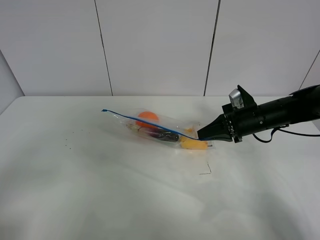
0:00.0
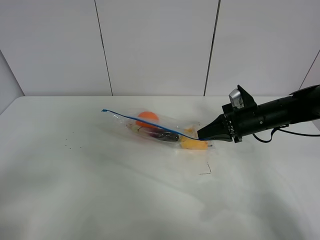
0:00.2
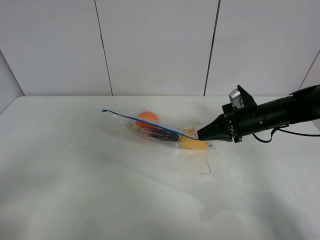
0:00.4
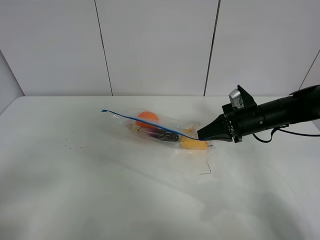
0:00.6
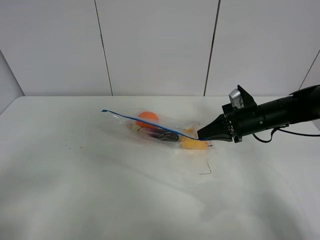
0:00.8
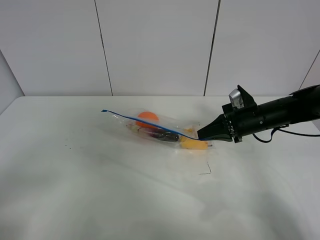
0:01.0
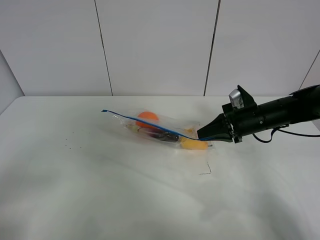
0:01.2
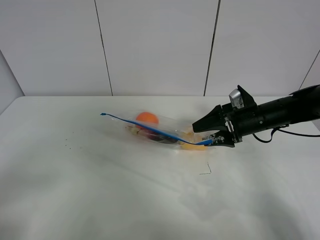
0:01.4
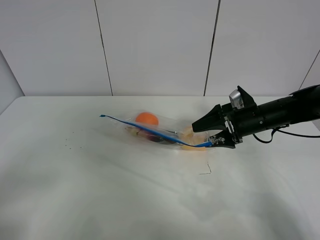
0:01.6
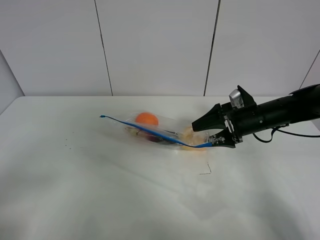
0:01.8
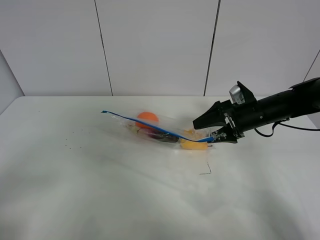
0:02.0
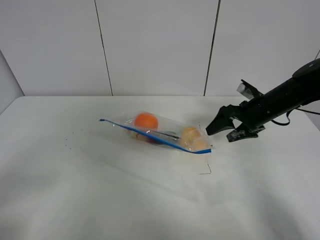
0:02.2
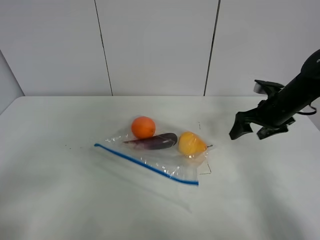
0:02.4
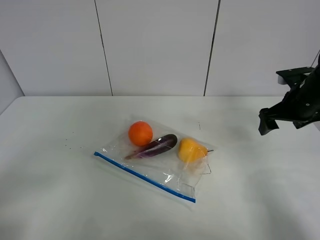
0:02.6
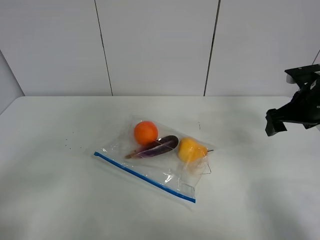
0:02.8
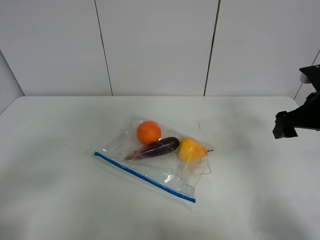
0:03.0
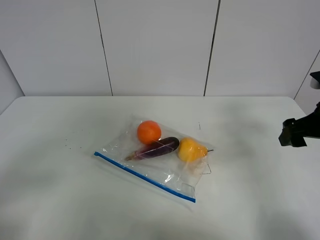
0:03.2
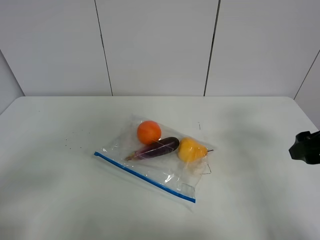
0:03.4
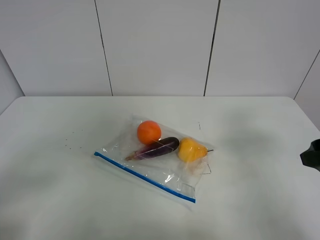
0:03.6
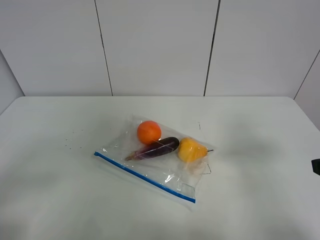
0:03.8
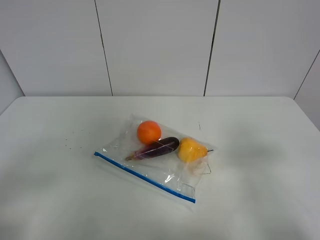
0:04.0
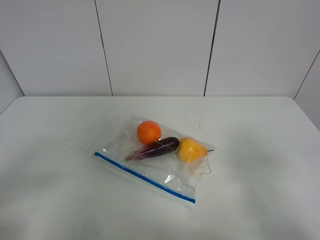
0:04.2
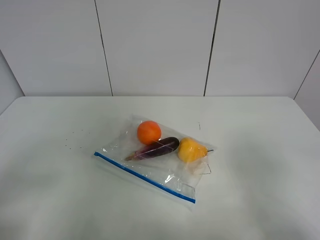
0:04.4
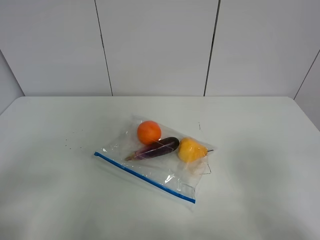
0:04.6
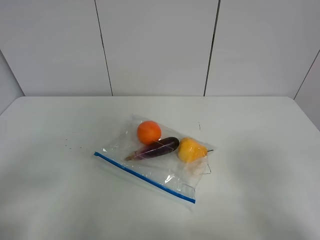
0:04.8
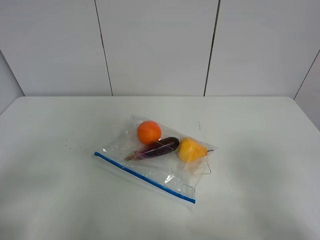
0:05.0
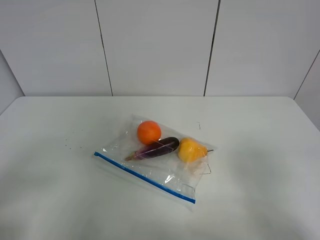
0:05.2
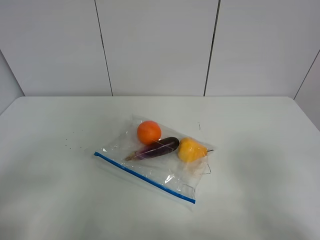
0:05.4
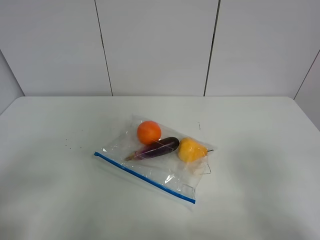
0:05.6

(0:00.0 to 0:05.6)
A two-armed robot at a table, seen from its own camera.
Step, 0:00.0 - 0:02.4: Place the fruit bag with right gripper.
0:00.0 - 0:01.4: The right gripper opens up.
0:01.4 - 0:02.8: The right gripper heads to the right and upward, covering roughly 10 cm.
0:02.8 - 0:04.2: The right gripper is displaced backward by approximately 25 cm.

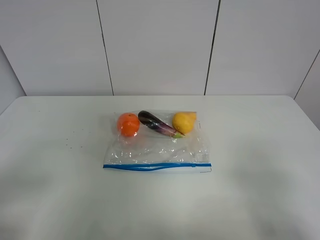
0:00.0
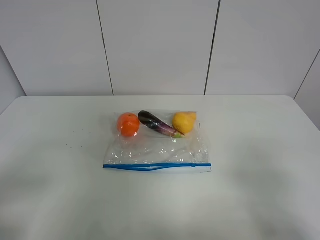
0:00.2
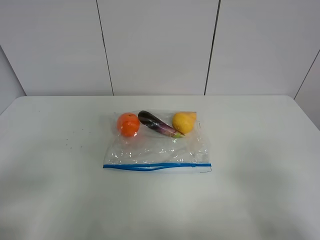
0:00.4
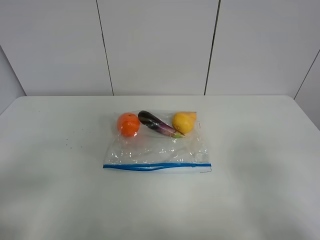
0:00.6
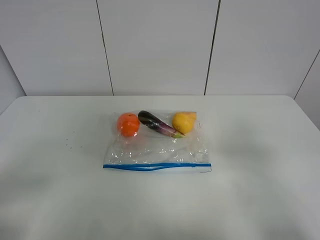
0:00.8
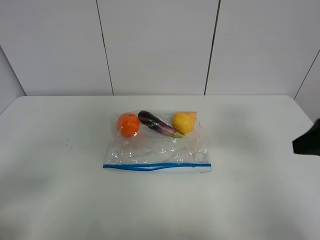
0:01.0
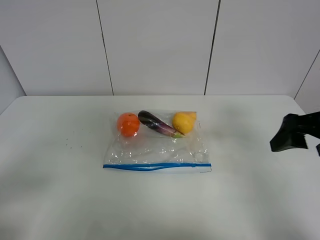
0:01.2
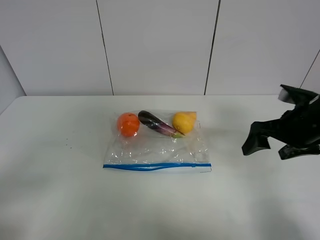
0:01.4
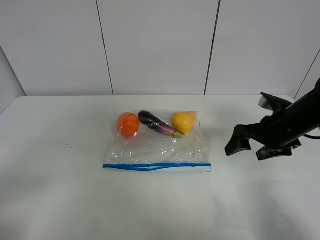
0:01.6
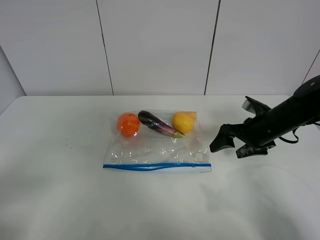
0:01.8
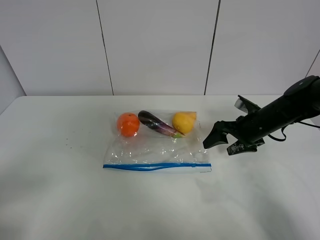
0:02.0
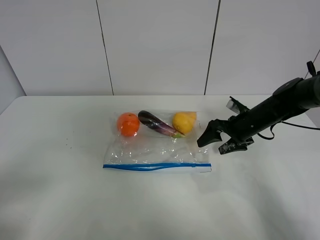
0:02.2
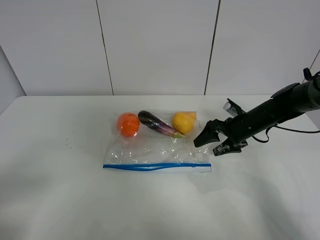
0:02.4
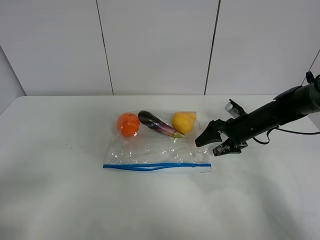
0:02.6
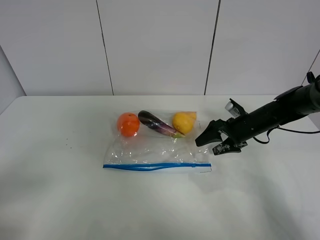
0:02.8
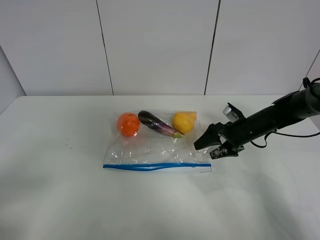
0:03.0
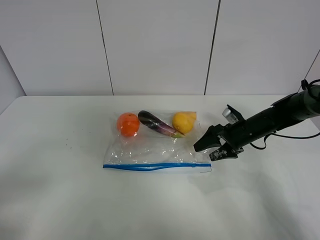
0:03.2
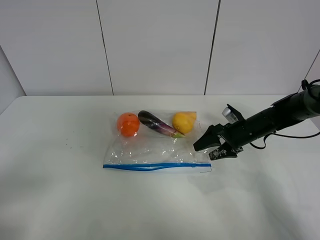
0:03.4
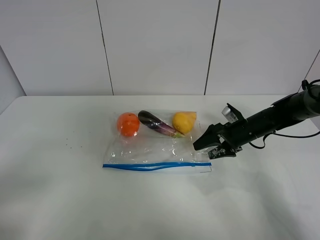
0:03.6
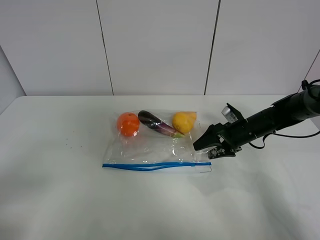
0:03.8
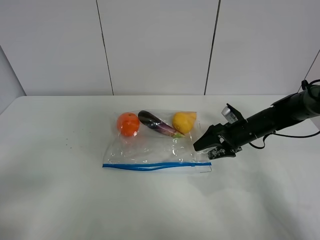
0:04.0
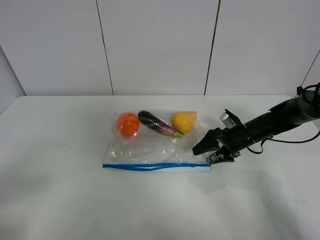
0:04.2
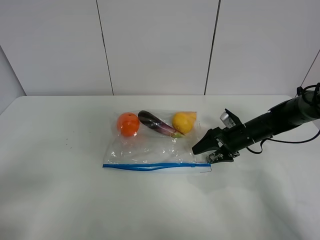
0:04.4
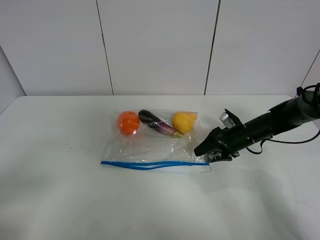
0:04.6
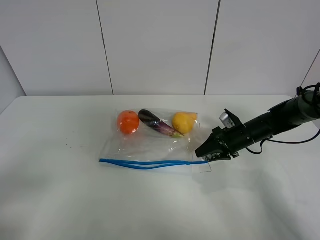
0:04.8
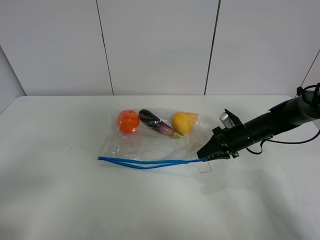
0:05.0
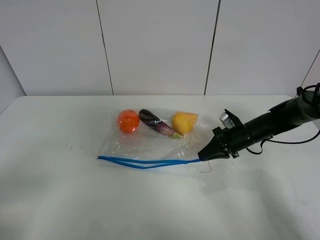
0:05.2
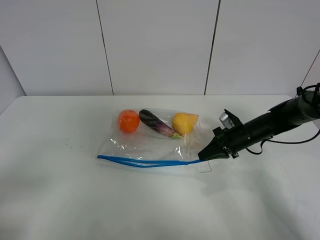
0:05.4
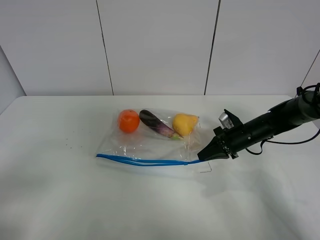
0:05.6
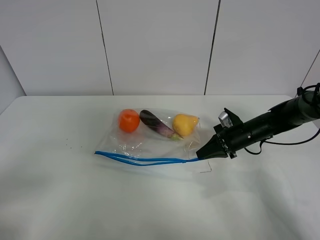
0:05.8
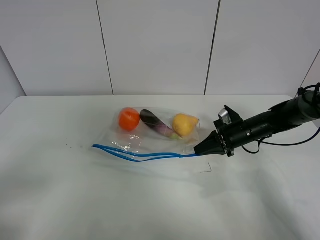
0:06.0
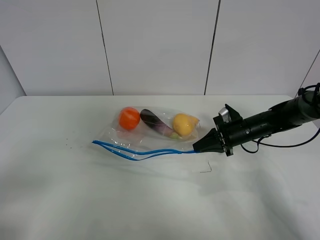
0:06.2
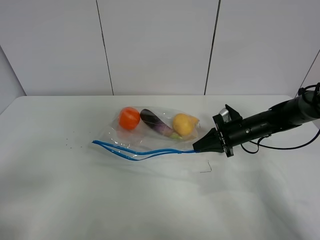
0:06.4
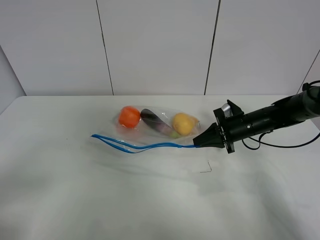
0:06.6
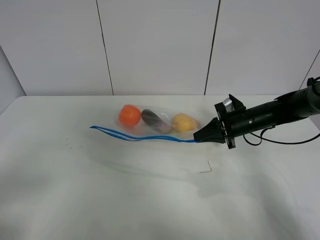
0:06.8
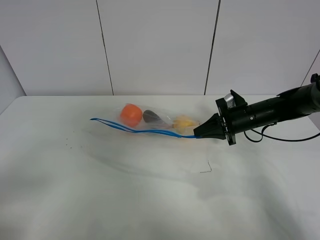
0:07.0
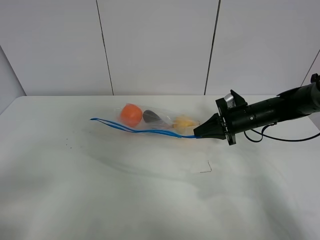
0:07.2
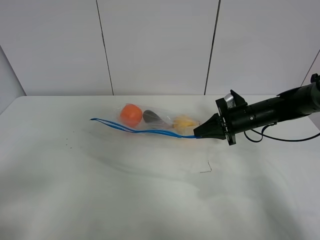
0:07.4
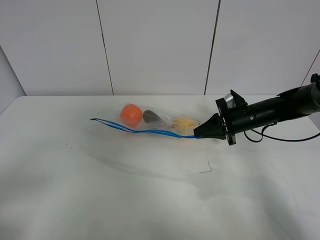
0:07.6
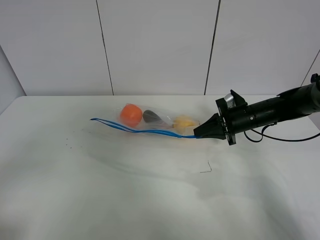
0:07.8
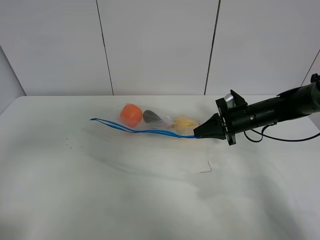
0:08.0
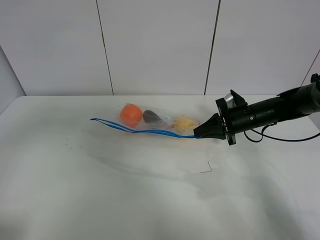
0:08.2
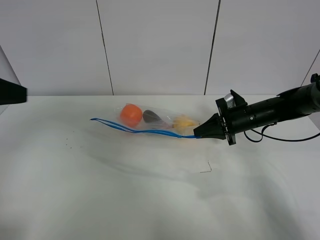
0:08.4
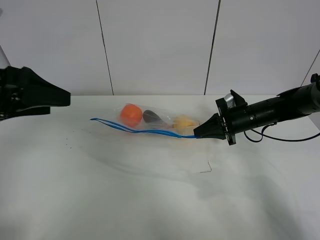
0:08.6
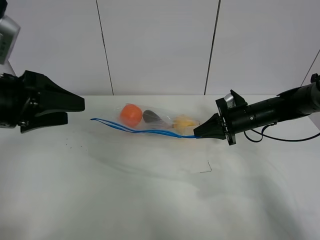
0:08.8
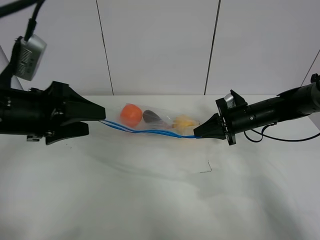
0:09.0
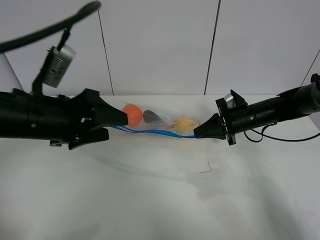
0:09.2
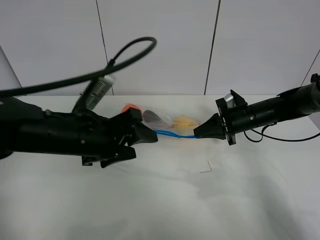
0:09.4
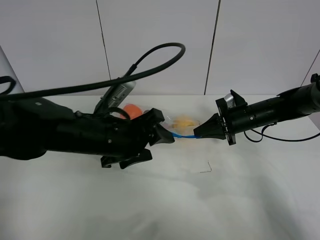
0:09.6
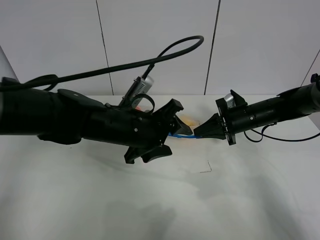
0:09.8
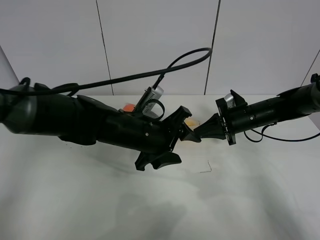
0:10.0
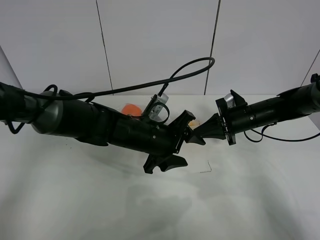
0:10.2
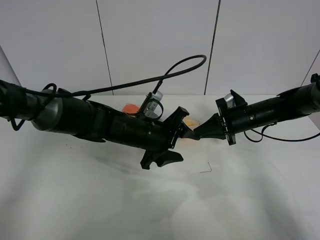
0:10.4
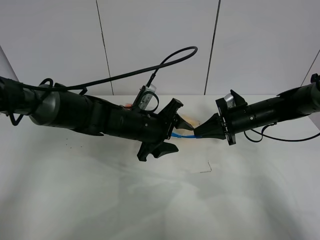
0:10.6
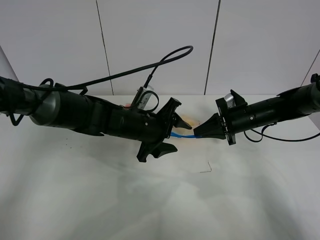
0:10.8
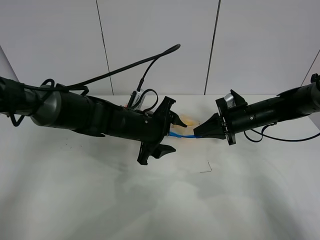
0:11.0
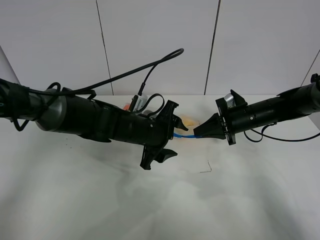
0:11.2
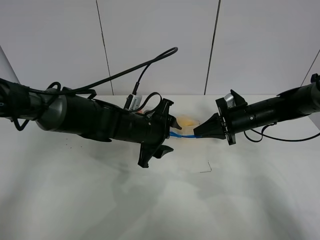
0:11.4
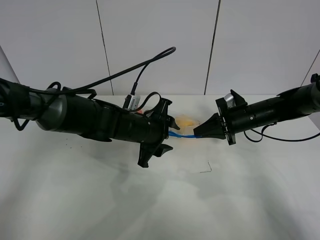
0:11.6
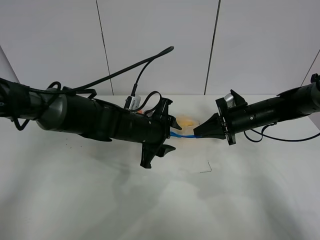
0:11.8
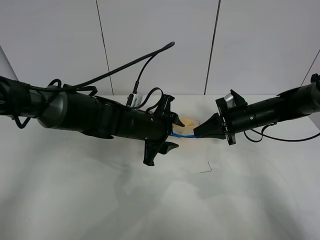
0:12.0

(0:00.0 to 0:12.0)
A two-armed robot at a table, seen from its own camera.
Step, 0:00.0 - 0:05.2: Grasp the fruit bag with right gripper.
Step, 0:05.4 - 0:07.6: Lift the fruit bag with your right gripper.
0:00.0 - 0:01.6: The right gripper heads forward, covering some 30 cm.
0:01.6 - 0:03.0: The right gripper moves downward and forward, roughly 15 cm.
0:03.0 - 0:04.4: The grippers make only small movements.
0:04.4 - 0:06.0: The right gripper closes its fingers.
0:06.0 - 0:07.6: The grippers move only a little.
0:07.6 - 0:09.0: The left gripper moves forward and to the right, some 20 cm.
0:09.0 - 0:10.4: The left gripper goes some 20 cm to the right, downward and forward.

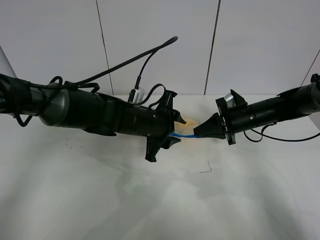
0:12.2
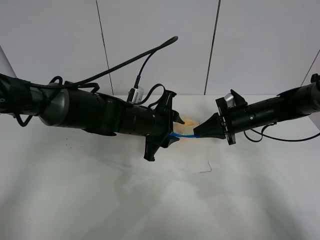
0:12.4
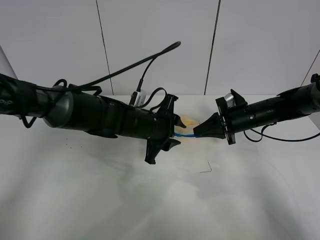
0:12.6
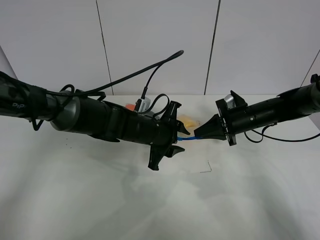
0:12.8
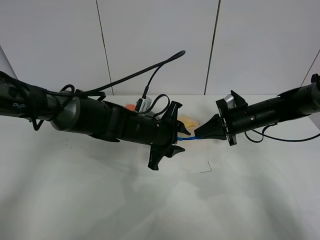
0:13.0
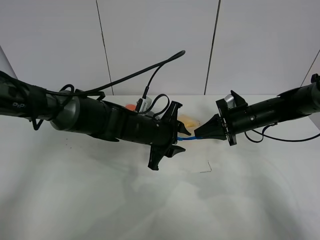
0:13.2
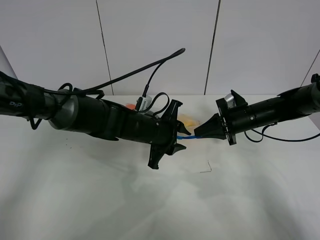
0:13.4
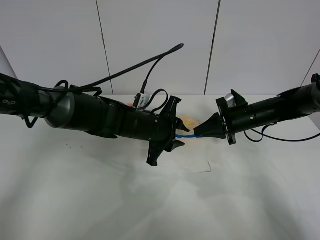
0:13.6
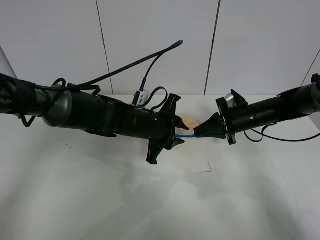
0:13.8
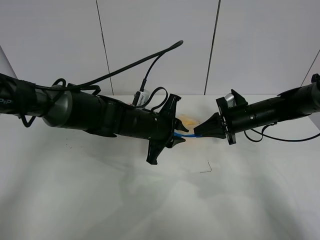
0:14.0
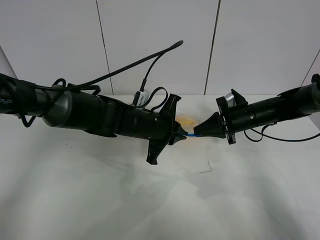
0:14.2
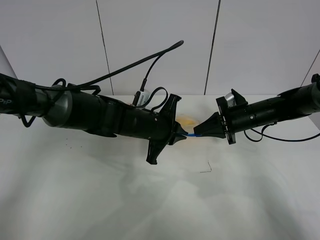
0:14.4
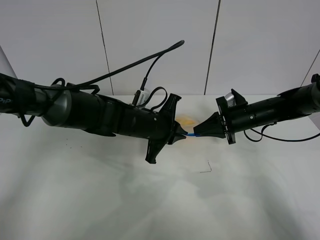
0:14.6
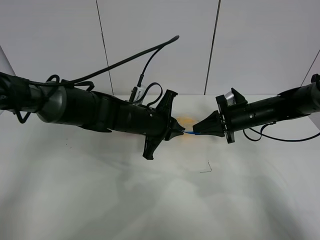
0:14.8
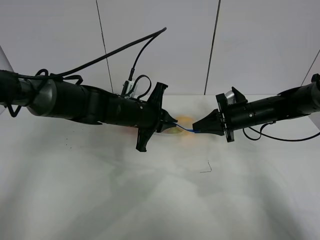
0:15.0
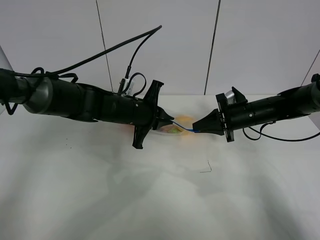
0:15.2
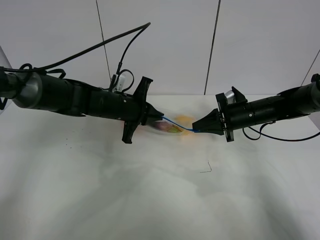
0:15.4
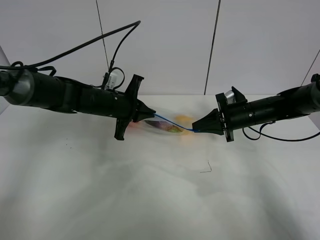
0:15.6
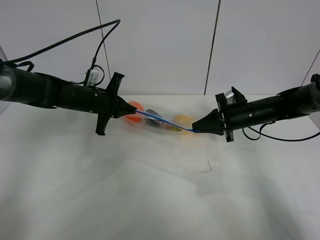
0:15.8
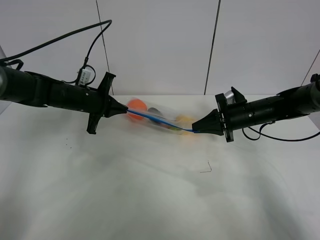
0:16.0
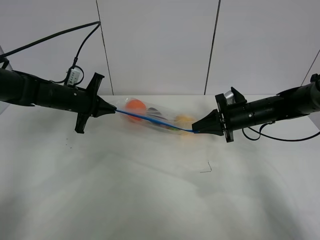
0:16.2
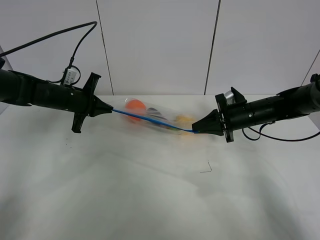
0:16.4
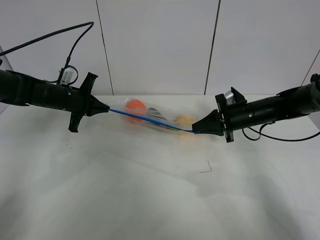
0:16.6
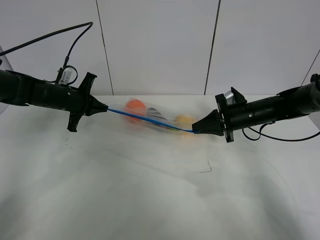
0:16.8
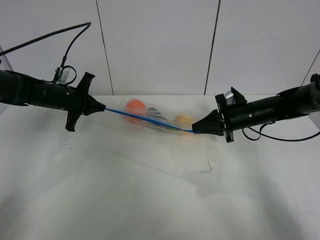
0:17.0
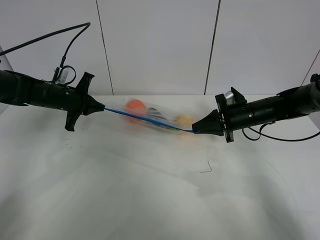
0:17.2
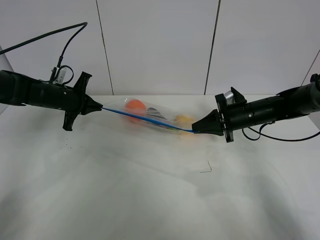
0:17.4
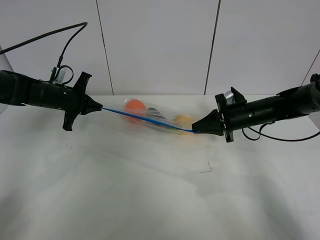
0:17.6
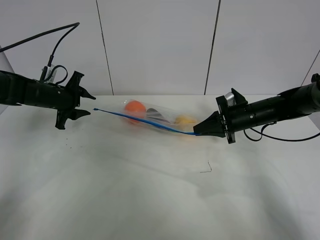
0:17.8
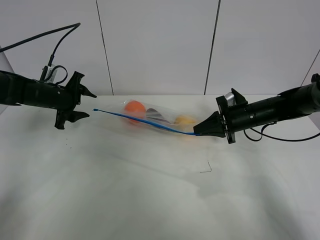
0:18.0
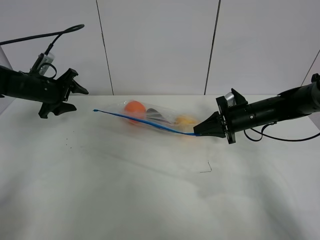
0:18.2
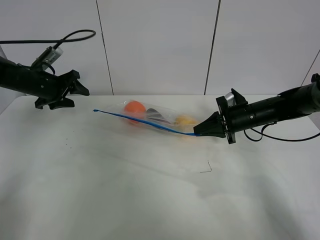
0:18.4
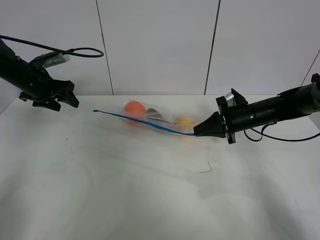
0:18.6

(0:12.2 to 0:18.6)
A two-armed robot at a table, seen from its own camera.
Step, 0:12.2 - 0:18.0: Pull the fruit bag with left gripper.
0:12.2 - 0:13.8: The grippers stay close to where they were, moving slightly.
0:13.8 - 0:15.4: The left gripper goes some 5 cm to the left, and closes its fingers.
0:15.4 - 0:17.0: The left gripper travels to the left by approximately 15 cm.
0:17.0 - 0:18.6: The left gripper shifts approximately 10 cm to the left and upward, and opens.
